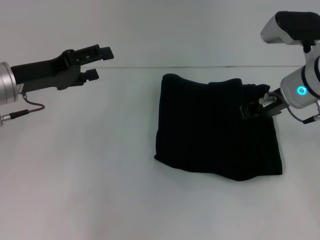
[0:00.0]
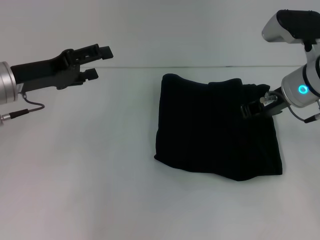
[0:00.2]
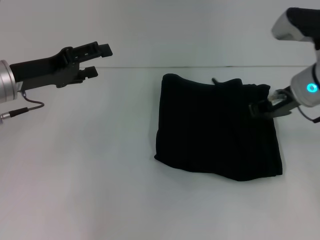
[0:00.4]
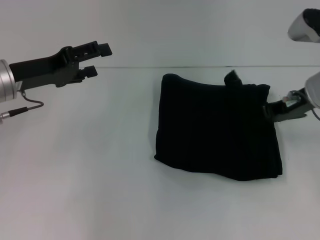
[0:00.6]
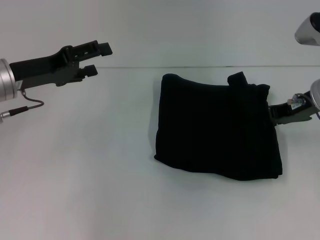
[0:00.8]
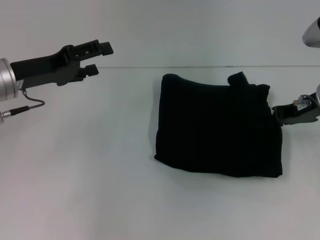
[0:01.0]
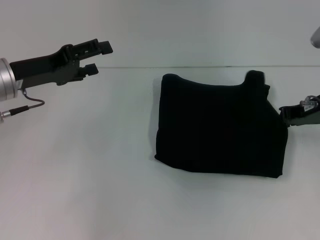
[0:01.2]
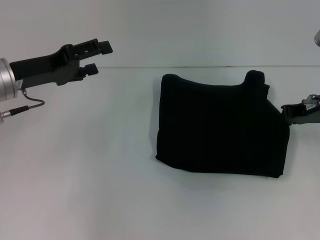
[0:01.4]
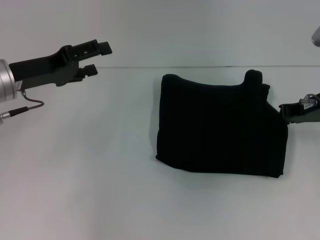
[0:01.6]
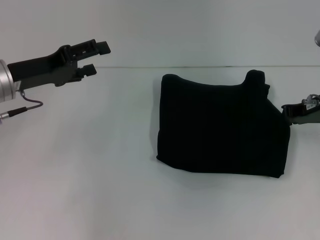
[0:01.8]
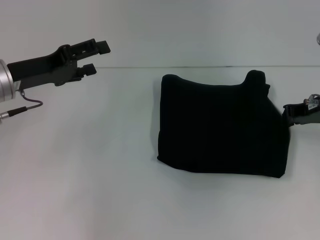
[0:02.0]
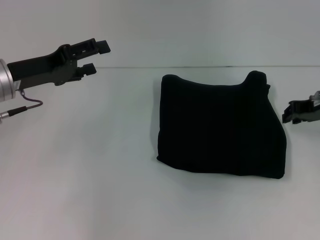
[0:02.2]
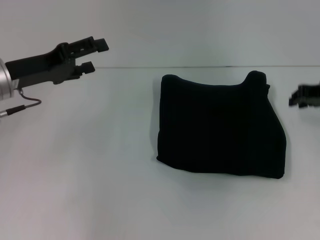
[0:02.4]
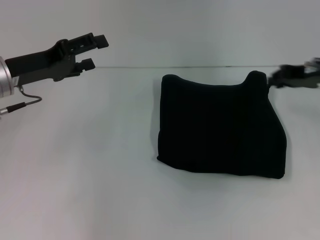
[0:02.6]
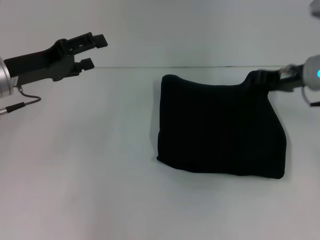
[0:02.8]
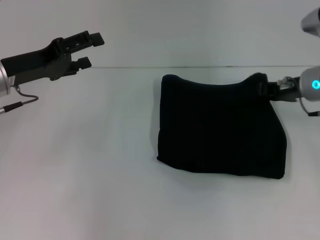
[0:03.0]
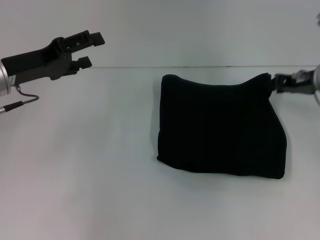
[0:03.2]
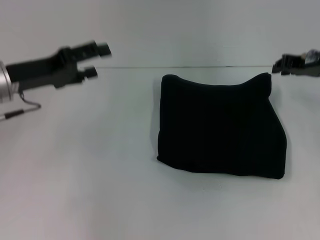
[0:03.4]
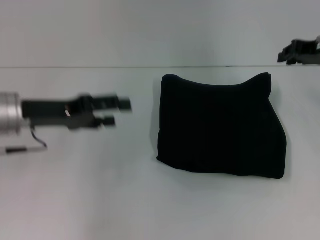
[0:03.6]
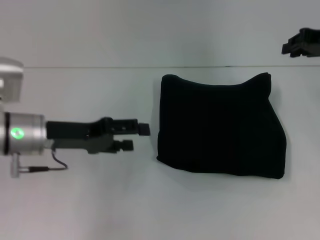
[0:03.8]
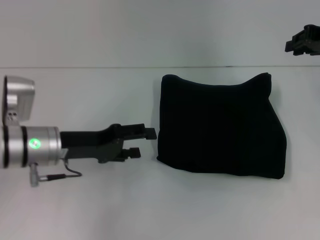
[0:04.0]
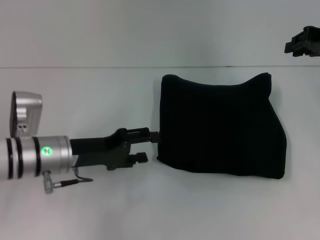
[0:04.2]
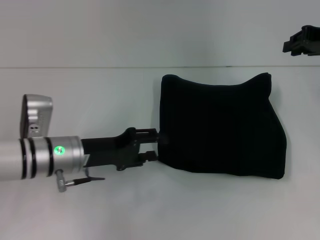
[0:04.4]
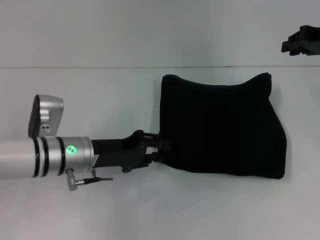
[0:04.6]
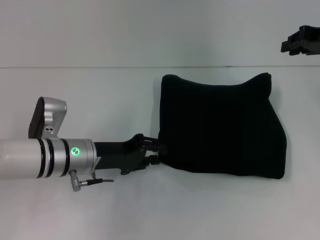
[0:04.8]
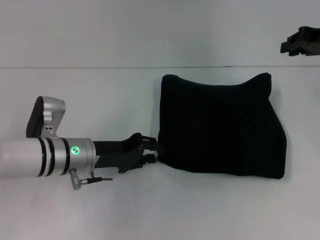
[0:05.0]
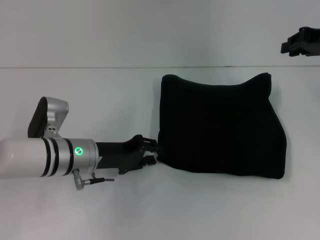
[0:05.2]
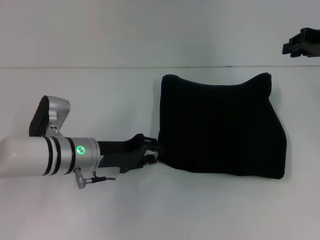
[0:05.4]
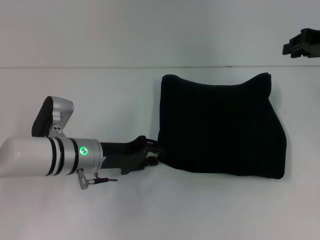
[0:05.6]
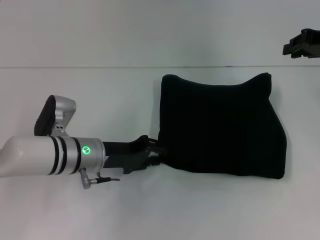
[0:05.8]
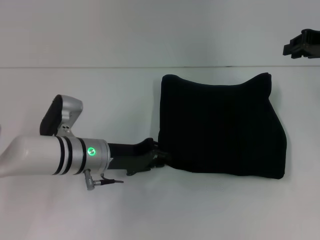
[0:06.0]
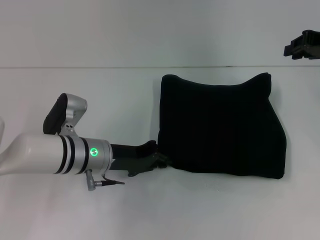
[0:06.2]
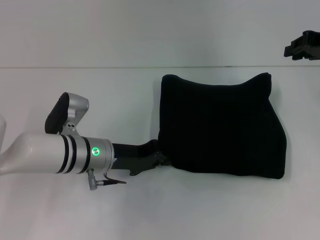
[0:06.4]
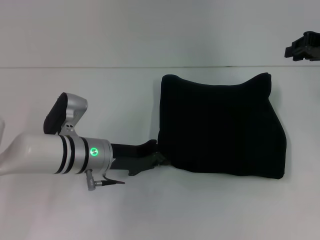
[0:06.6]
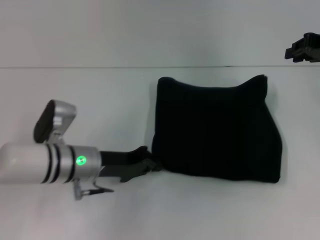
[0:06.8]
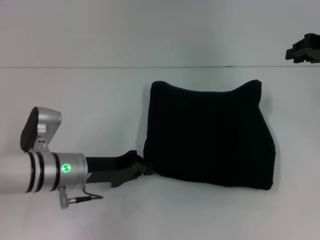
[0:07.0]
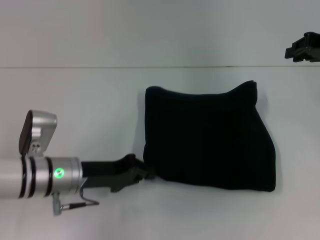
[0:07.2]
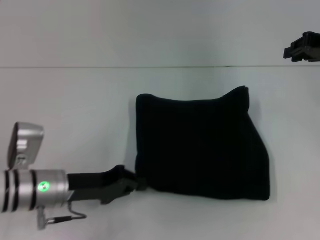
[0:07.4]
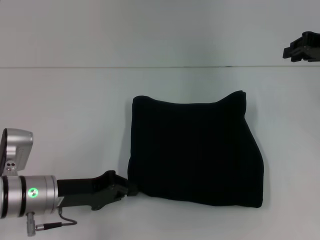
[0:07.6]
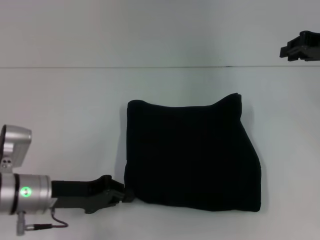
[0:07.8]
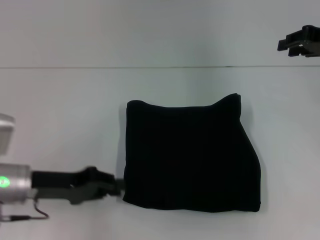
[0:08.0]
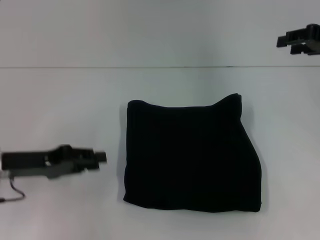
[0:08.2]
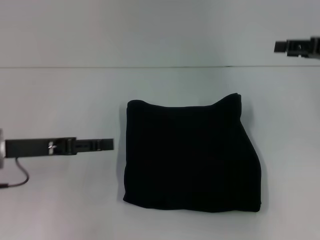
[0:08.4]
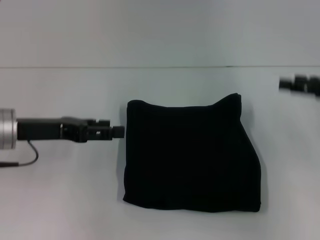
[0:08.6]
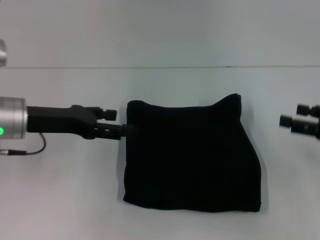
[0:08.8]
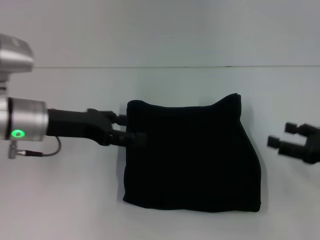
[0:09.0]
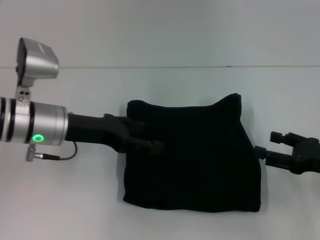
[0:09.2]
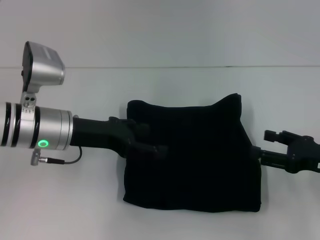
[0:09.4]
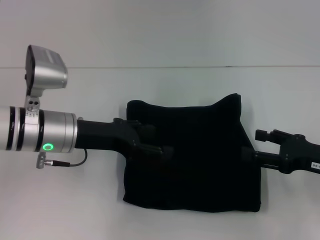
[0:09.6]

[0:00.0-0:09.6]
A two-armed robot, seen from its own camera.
0.0 to 1.6 s: The right gripper goes approximately 5 cm to the right.
1.6 to 3.2 s: The grippers stay close to where they were, moving slightly.
3.2 to 4.8 s: The left gripper is displaced downward and to the right by approximately 15 cm, and closes up, while the right gripper travels upward by some 10 cm.
4.8 to 6.4 s: The left gripper closes its fingers.
6.4 to 8.0 s: The left gripper shifts approximately 10 cm to the left and backward.
8.0 to 9.6 s: The left gripper heads to the right and forward, covering about 10 cm, and opens up; the right gripper heads backward and downward, covering approximately 20 cm, and opens its fingers.

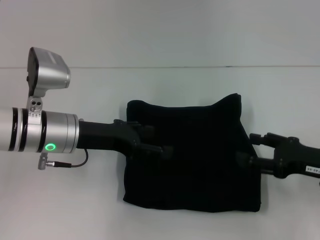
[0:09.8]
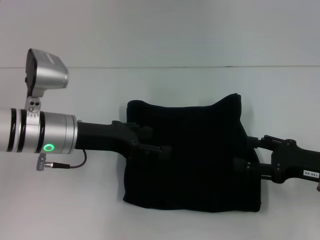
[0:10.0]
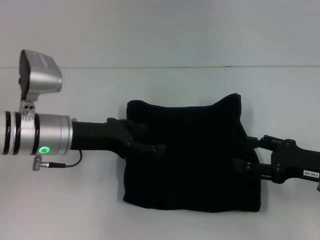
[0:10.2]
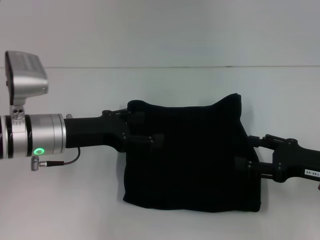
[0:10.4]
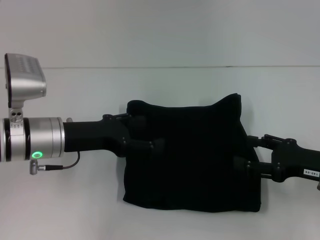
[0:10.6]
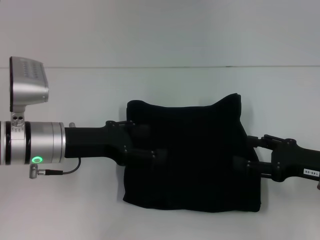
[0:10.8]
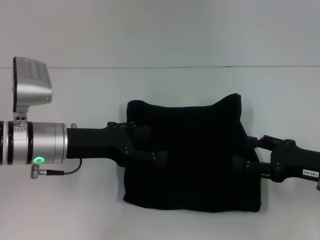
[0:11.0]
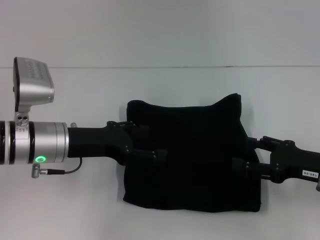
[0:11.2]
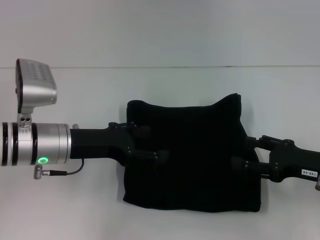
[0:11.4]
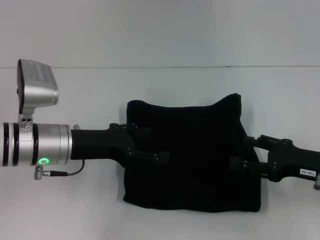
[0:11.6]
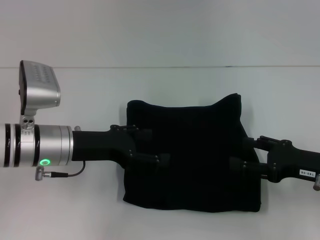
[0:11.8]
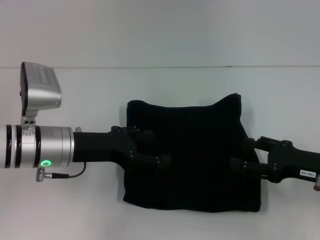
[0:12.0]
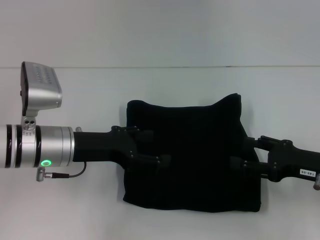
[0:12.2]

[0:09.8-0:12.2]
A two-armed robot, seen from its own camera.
9.8 to 11.0 s: There are only small adjustments of the grippers.
11.0 to 12.2 s: Neither gripper changes place.

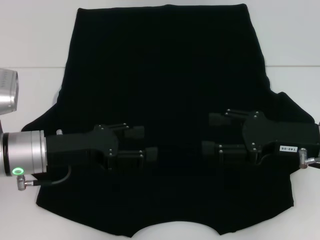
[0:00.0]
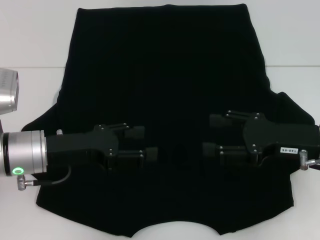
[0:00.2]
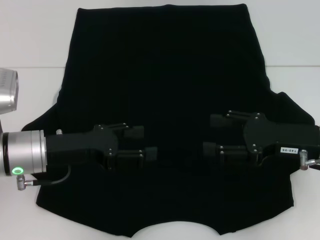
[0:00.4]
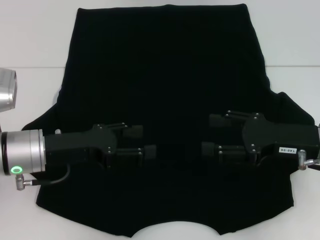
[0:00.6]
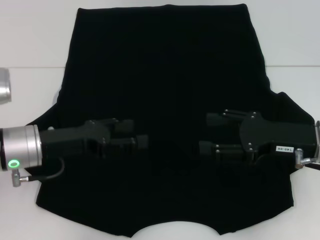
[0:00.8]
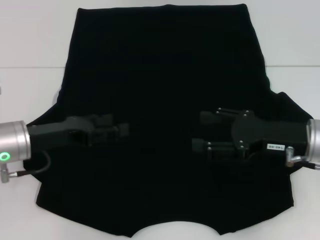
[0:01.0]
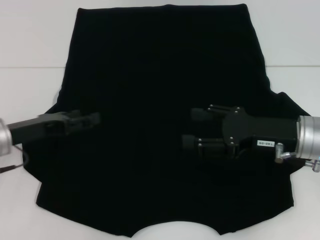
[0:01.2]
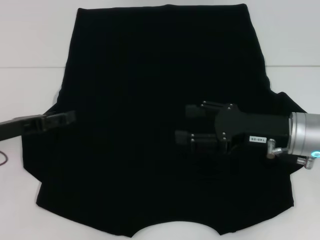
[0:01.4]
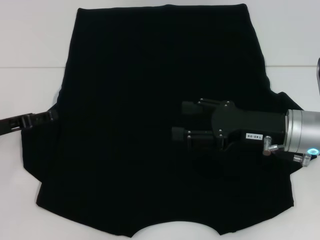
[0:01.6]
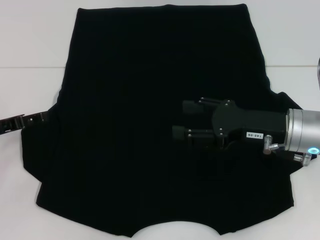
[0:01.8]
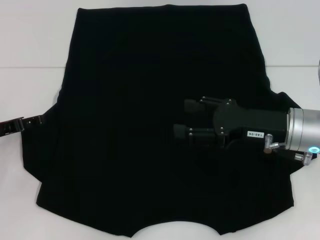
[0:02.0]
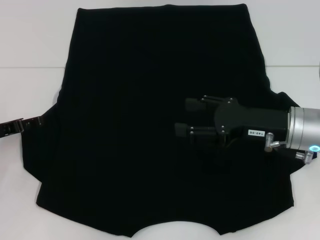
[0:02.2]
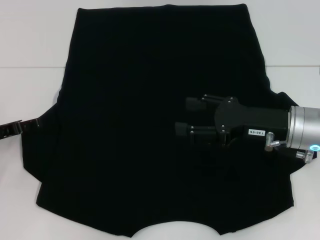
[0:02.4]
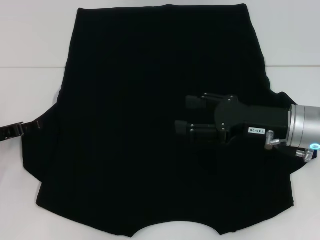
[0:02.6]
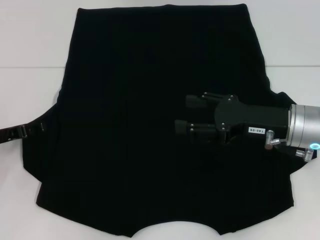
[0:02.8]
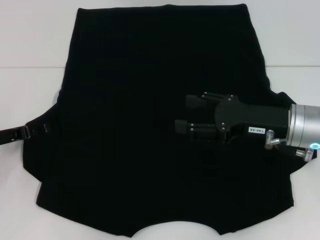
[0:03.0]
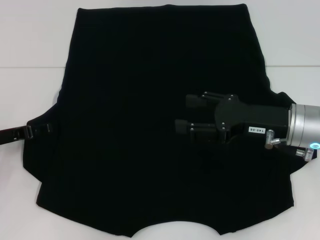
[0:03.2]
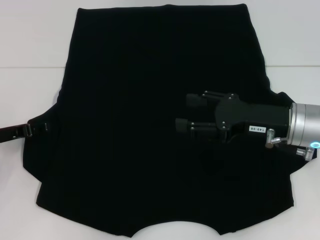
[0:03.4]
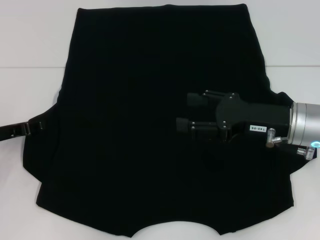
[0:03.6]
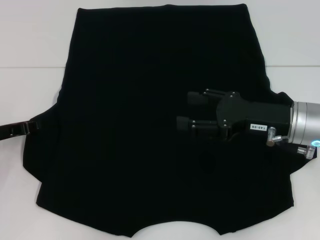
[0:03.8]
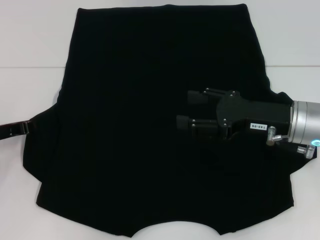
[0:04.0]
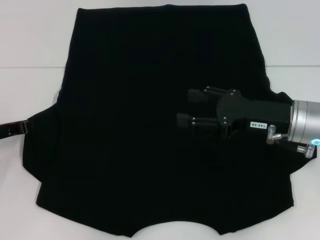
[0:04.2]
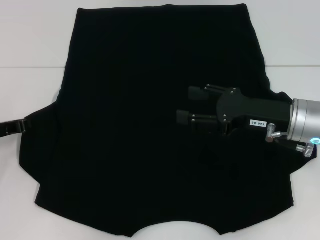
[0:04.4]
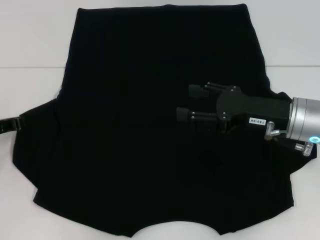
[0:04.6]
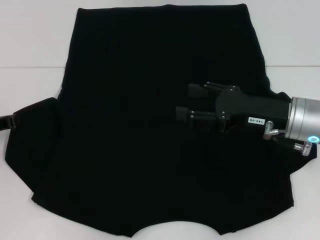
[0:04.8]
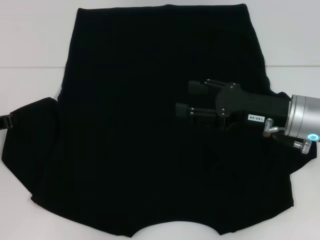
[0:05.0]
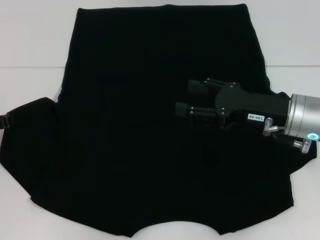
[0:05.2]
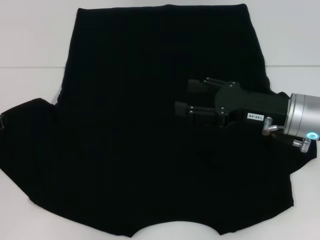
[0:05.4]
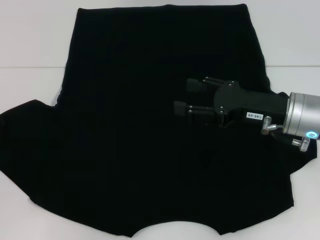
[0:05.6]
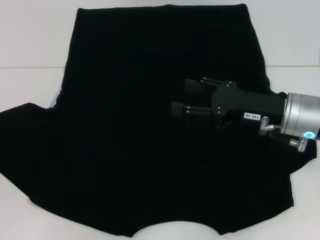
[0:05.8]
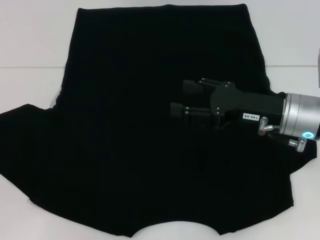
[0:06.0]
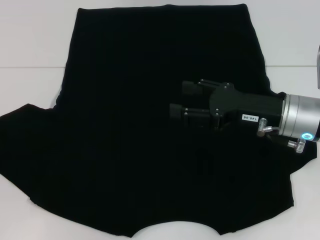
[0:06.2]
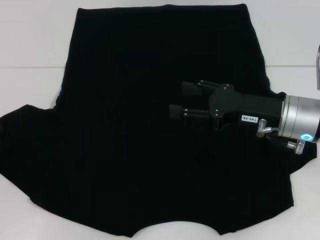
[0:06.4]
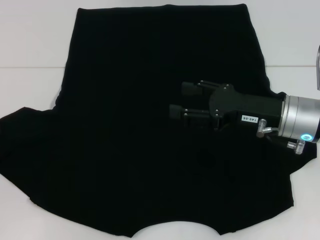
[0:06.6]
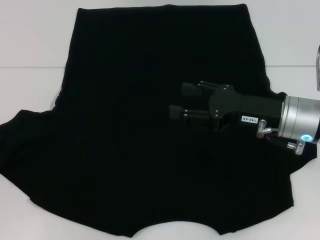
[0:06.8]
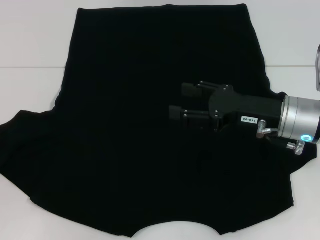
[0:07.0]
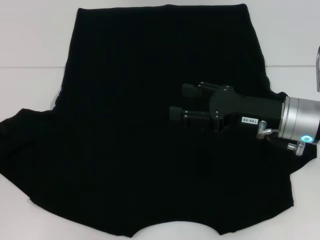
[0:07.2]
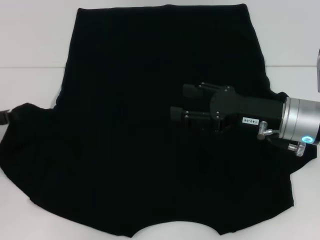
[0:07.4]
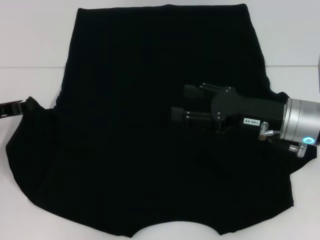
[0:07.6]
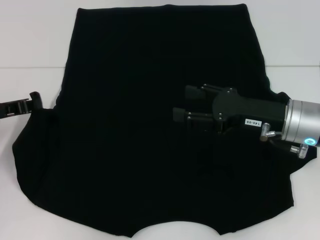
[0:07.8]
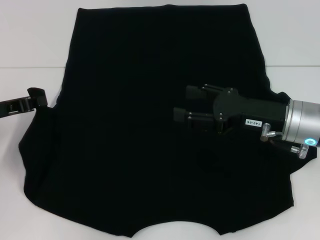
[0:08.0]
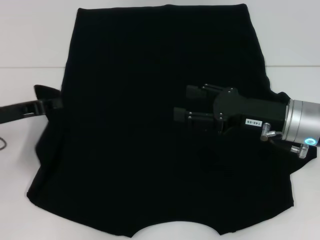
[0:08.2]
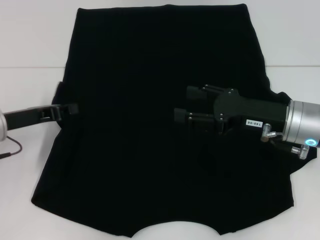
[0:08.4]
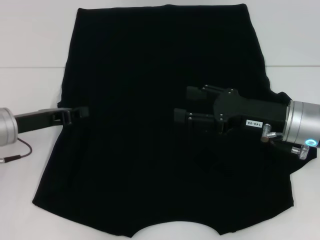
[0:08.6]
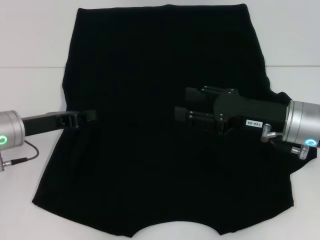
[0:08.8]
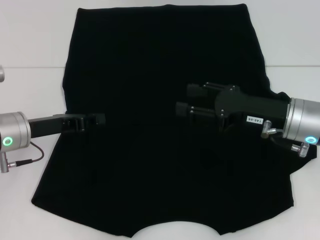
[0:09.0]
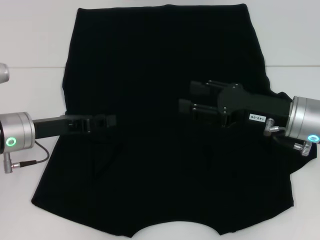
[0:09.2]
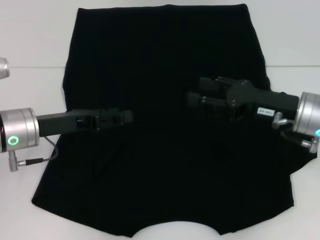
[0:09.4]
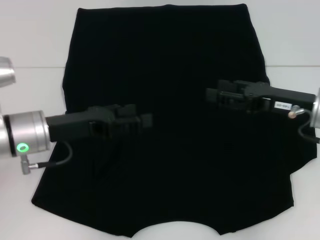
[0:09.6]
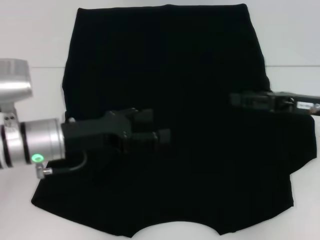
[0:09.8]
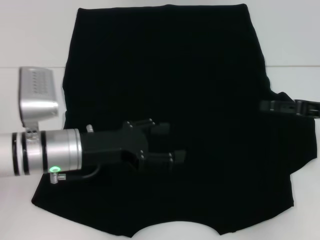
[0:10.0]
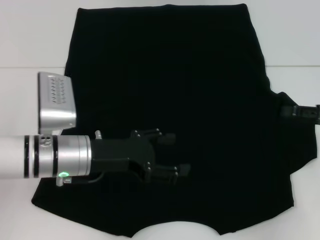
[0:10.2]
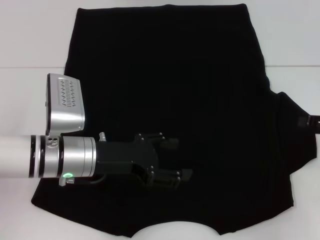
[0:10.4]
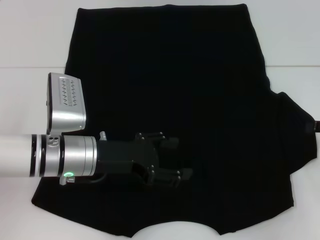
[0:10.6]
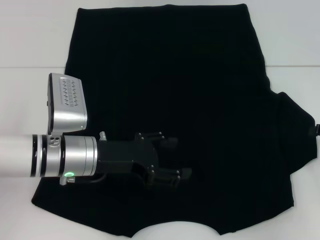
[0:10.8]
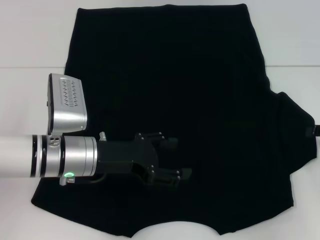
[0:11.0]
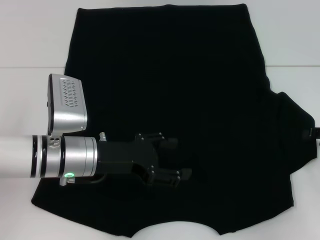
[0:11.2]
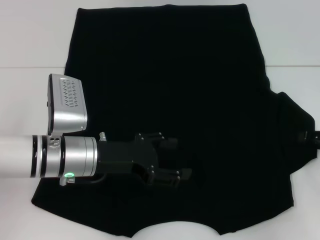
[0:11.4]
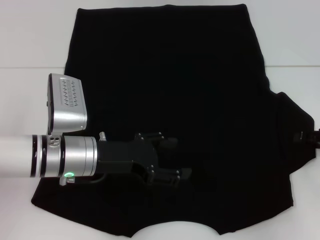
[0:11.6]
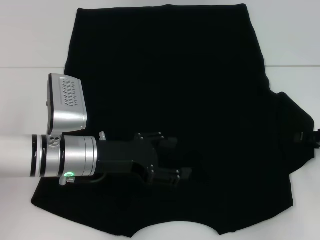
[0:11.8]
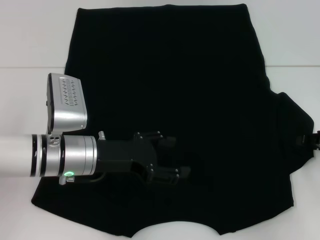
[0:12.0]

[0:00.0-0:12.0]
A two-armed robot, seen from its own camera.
Step, 0.0 to 9.4 s: Fold the bottom left sleeve with your left hand.
0.0 to 1.6 s: The left gripper heads to the left, covering about 10 cm.
1.6 to 3.0 s: The grippers move only a little.
3.0 to 4.4 s: The left gripper closes up.
4.4 to 6.0 s: The grippers move only a little.
6.0 to 7.6 s: The left gripper shifts by roughly 5 cm.
7.6 to 9.0 s: The left gripper heads to the right, covering about 5 cm.
9.0 to 10.4 s: The right gripper shifts approximately 15 cm to the right. The left gripper heads to the right, covering roughly 10 cm, and opens up.
10.4 to 12.0 s: The grippers stay close to where they were, moving slightly.
